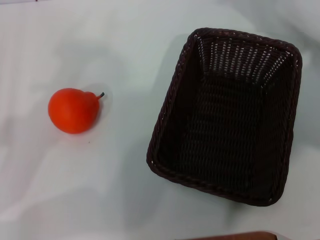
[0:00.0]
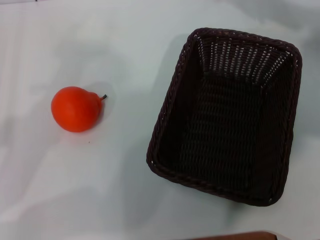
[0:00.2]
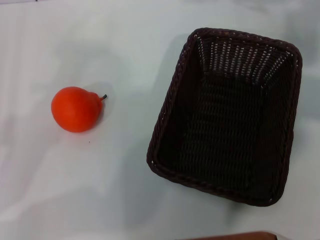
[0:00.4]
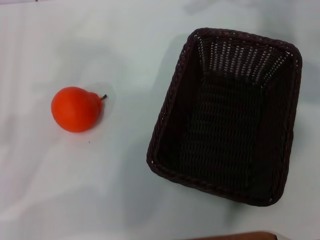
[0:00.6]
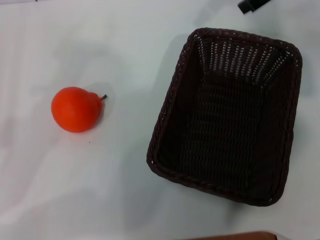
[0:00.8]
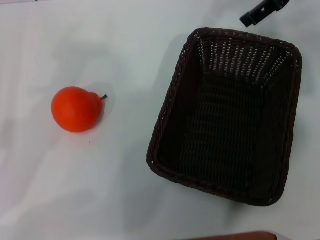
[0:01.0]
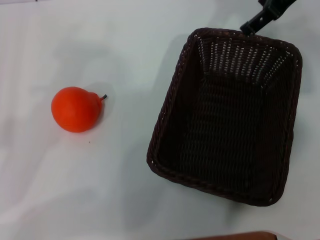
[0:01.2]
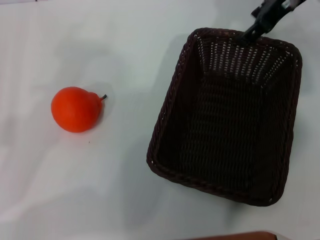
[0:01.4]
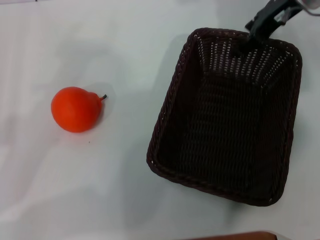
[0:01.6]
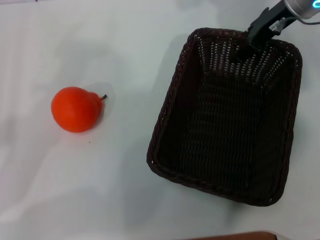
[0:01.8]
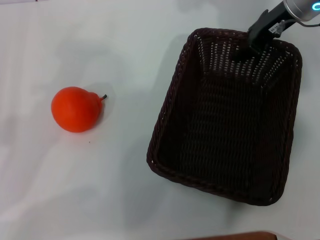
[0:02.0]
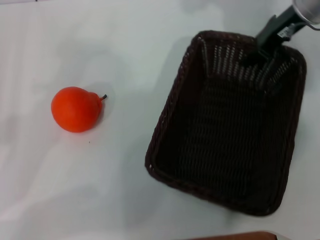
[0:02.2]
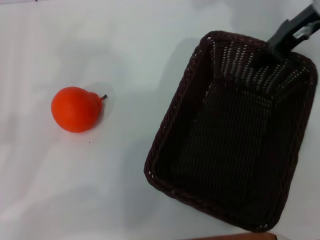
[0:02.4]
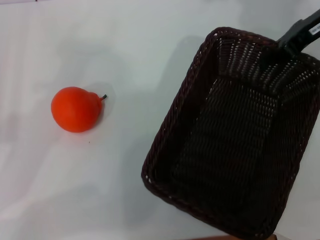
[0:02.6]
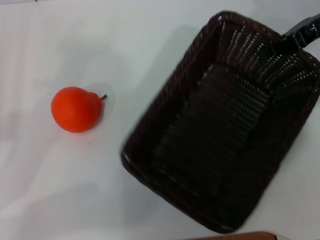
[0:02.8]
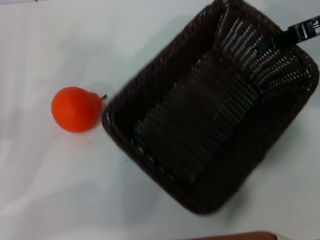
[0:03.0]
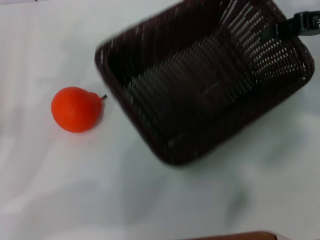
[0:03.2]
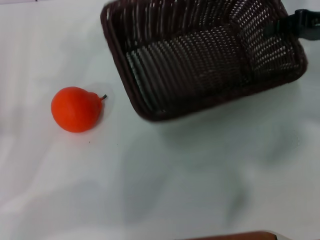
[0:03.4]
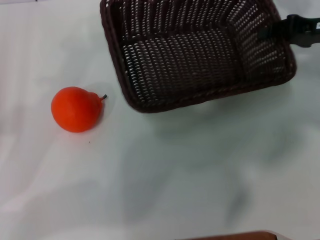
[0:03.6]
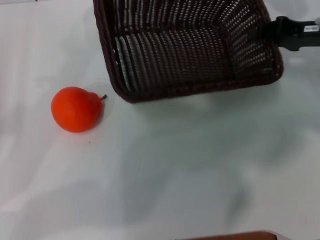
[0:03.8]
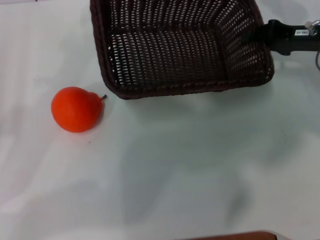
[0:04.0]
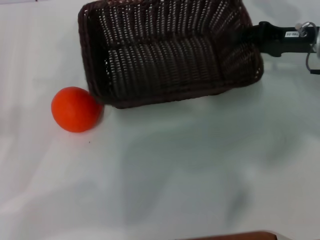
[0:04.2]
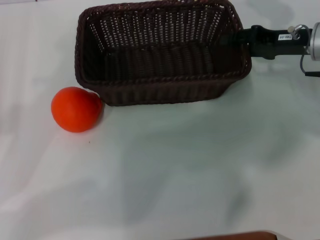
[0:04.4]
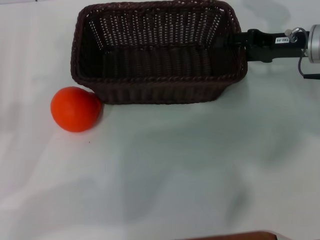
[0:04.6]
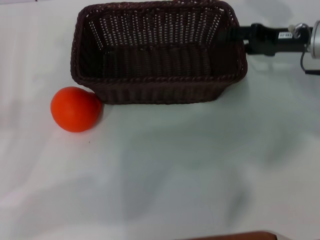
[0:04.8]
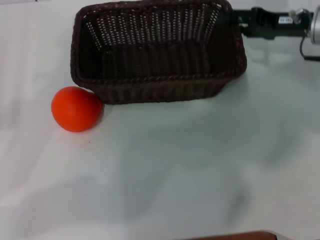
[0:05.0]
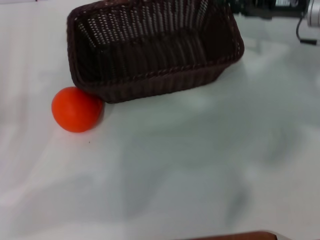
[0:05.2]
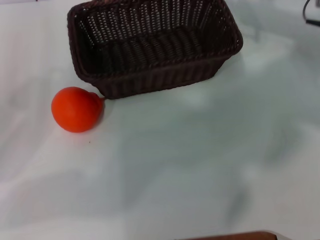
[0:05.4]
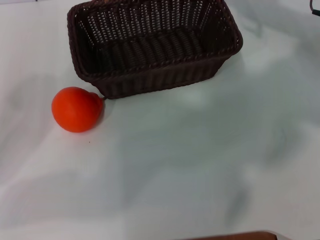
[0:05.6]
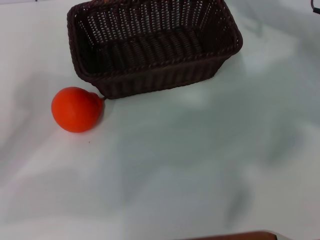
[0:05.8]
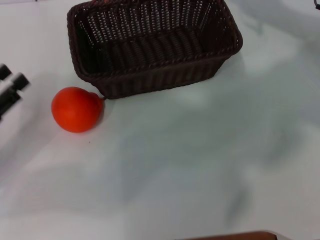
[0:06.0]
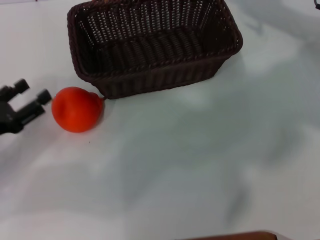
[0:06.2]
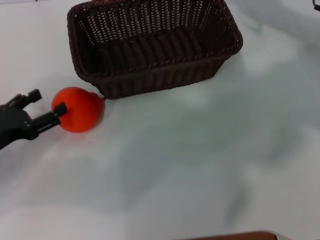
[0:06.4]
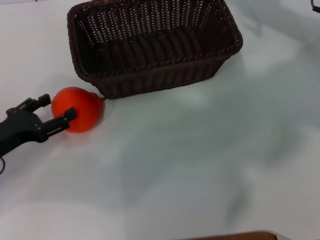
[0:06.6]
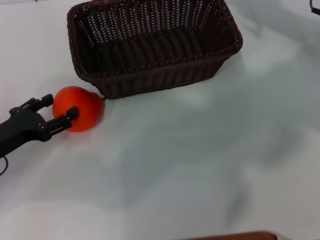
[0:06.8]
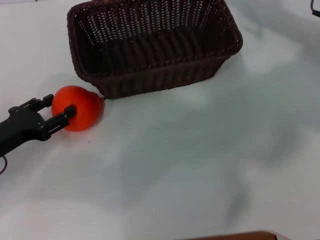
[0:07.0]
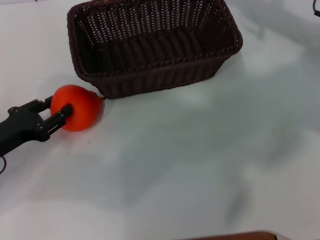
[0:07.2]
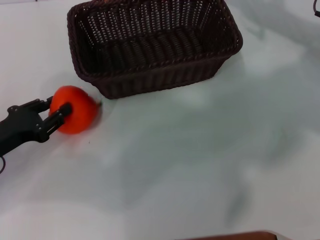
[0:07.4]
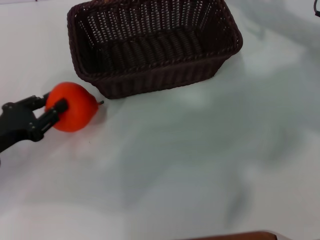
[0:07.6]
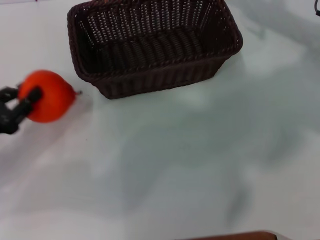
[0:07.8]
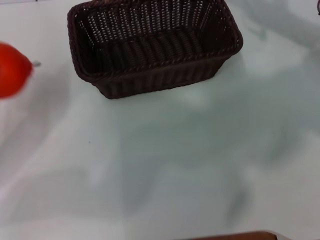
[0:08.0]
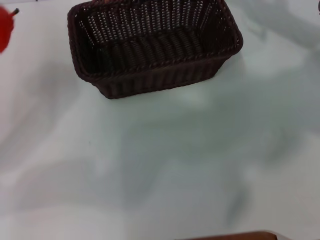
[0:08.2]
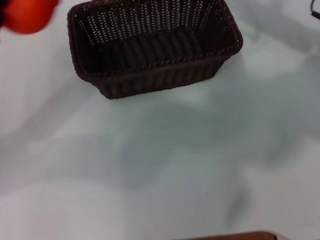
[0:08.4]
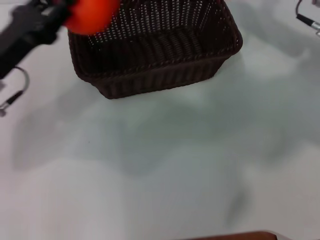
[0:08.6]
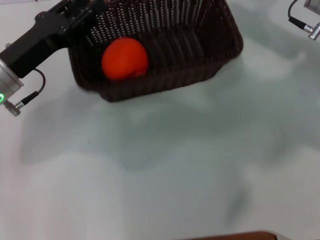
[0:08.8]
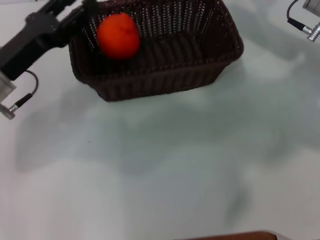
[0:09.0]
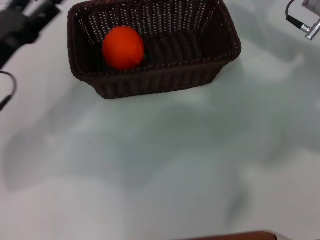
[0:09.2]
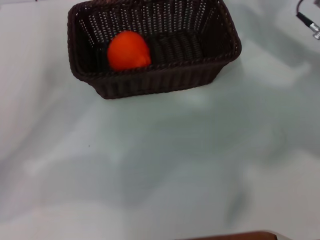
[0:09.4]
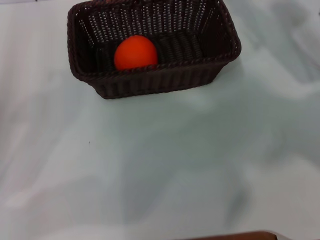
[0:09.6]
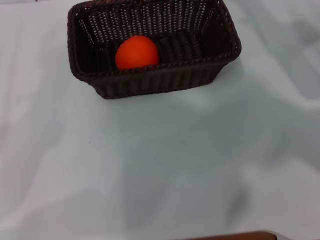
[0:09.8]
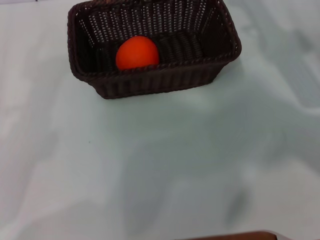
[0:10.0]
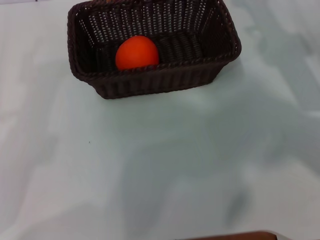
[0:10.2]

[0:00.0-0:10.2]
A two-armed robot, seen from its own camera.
Task of the whole recording: the right gripper pick up the black basket and place it horizontally in the middle of the table, the left gripper pick up the orange and place it into the black basket.
Step, 0:00.0 to 0:02.6: Pick up the dark basket with the right gripper.
Step, 0:02.8 to 0:05.0: Place the dark basket in the center of view with the right gripper.
Step, 0:05.4 to 0:07.6: Pick up the orange with the left gripper.
Step, 0:08.0 to 0:08.8: Place the orange into the dark basket with the left gripper.
0:00.0 to 0:01.4: The right gripper is displaced upward and to the left by approximately 10 cm.
0:01.4 to 0:03.0: The right gripper goes approximately 10 cm to the right, and closes up.
0:03.0 to 0:04.4: The right gripper heads downward, covering some 10 cm.
0:04.4 to 0:05.8: The right gripper shifts some 5 cm upward, and opens.
0:05.8 to 0:07.2: The left gripper travels downward by some 5 cm.
0:07.2 to 0:08.8: The left gripper travels forward, to the right and upward by roughly 10 cm, and closes its fingers.
0:08.8 to 0:10.2: The left gripper shifts roughly 20 cm backward and to the left, and opens its fingers; the right gripper travels backward by roughly 5 cm.
